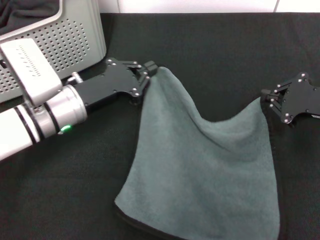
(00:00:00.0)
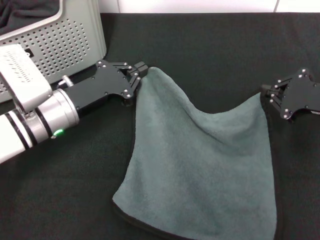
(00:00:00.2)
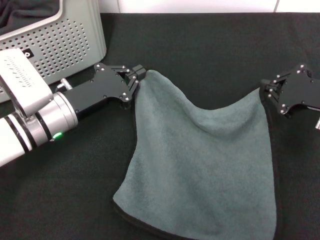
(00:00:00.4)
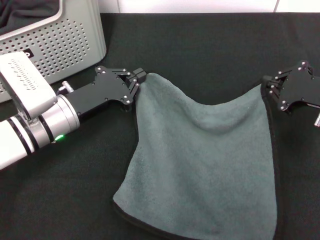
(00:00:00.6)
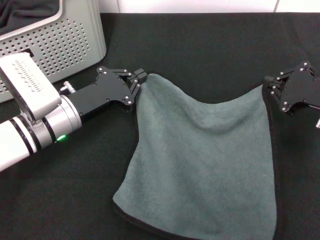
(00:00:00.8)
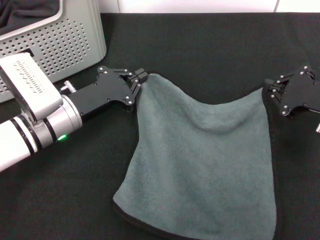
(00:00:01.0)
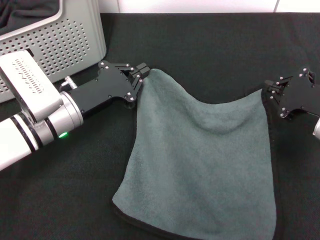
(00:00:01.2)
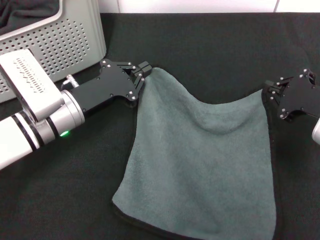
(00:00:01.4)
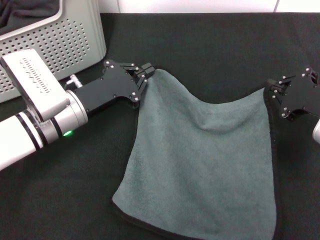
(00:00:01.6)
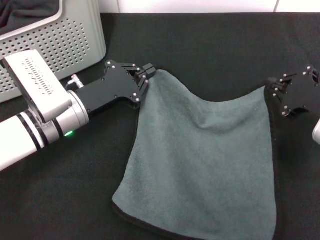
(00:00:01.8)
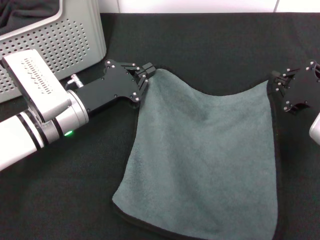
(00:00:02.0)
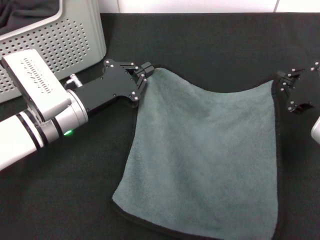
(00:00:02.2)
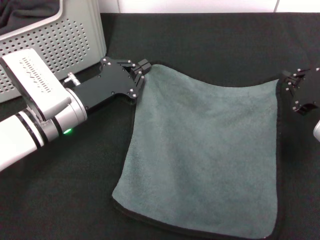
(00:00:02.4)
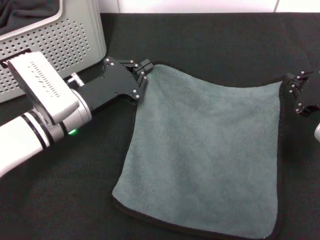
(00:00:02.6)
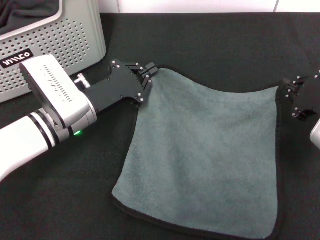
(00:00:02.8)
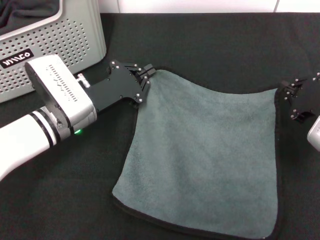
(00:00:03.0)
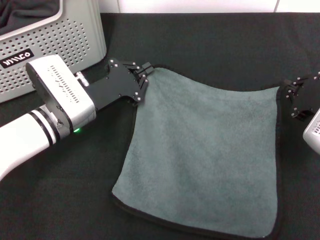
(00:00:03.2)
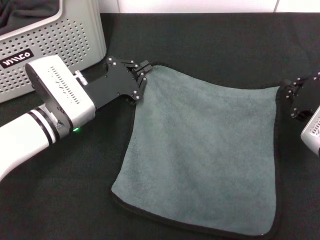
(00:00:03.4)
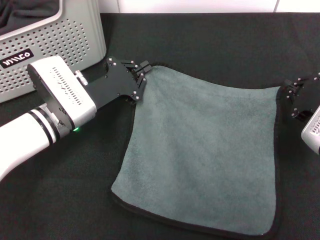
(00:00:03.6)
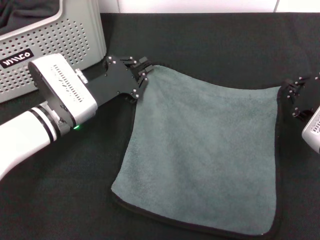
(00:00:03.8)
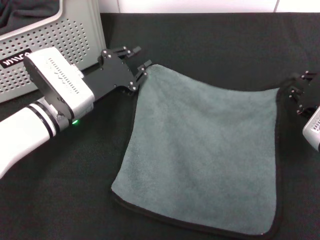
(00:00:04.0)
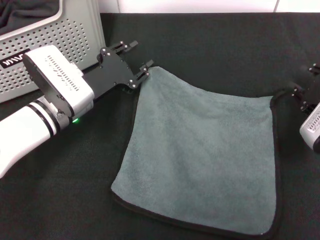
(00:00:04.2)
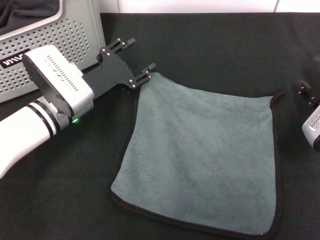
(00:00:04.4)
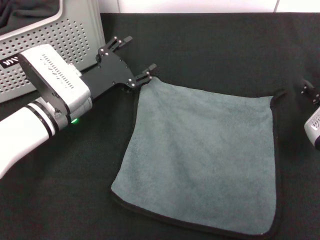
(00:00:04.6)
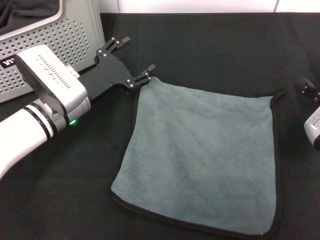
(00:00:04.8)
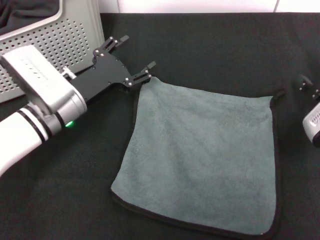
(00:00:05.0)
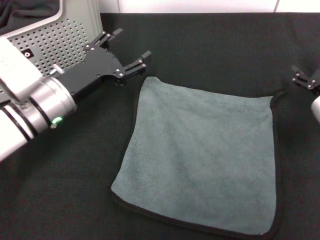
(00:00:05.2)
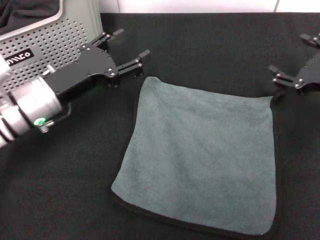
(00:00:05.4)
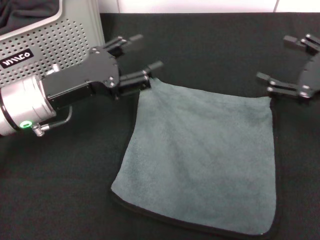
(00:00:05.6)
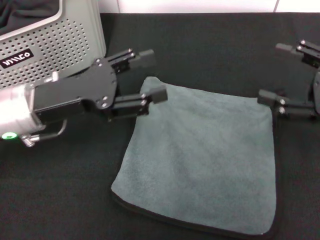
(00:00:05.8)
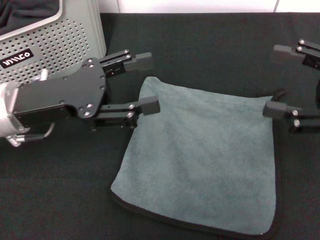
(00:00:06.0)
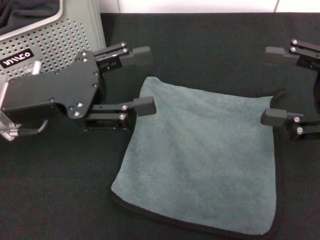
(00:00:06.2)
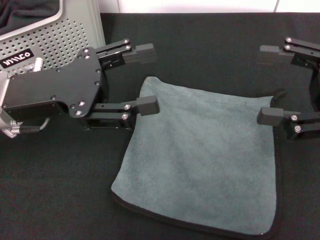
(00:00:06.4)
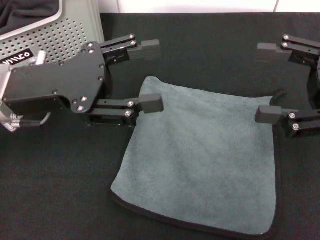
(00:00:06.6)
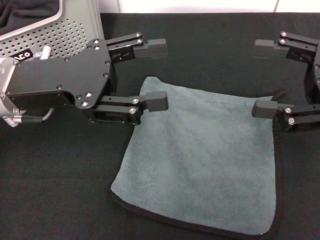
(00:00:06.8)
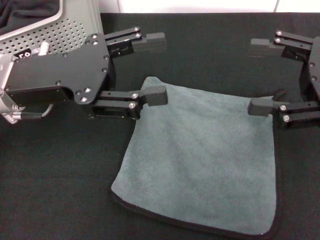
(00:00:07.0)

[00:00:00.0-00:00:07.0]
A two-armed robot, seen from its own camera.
Task of the whole recording: pick up the towel from the storage box and lay it flat on the black tablecloth.
Step, 00:00:00.0 to 00:00:04.2: Spread the towel flat with the right gripper.
00:00:00.0 to 00:00:01.4: The grippers make only small movements.
00:00:01.4 to 00:00:02.8: There are only small adjustments of the grippers.
00:00:02.8 to 00:00:04.2: The left gripper opens up.
00:00:04.2 to 00:00:05.6: The grippers both shift upward by approximately 5 cm. The right gripper opens, while the left gripper opens its fingers.
00:00:05.6 to 00:00:07.0: The grippers both shift upward by about 5 cm.
